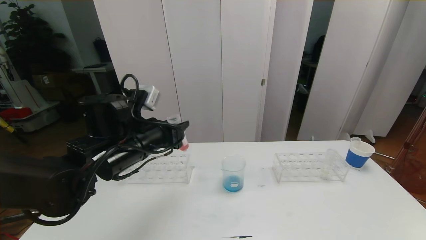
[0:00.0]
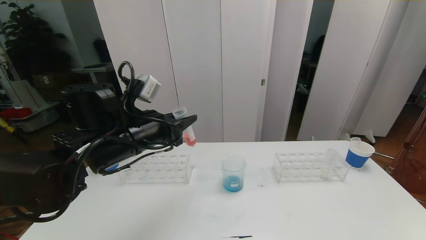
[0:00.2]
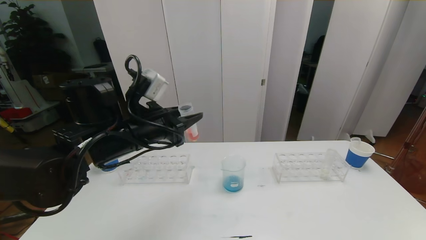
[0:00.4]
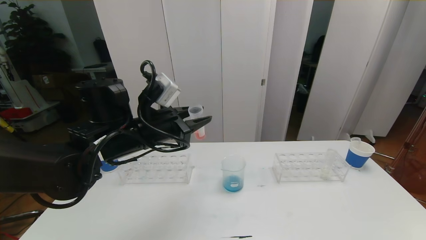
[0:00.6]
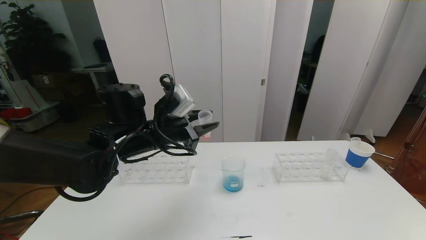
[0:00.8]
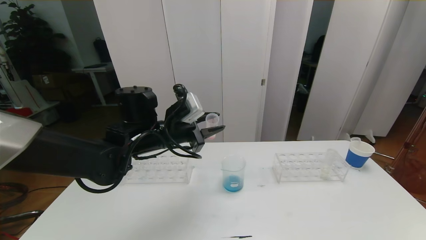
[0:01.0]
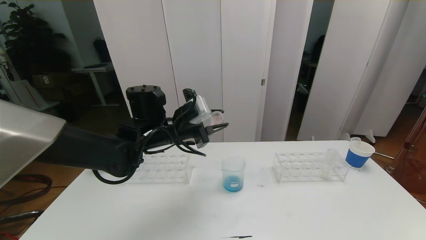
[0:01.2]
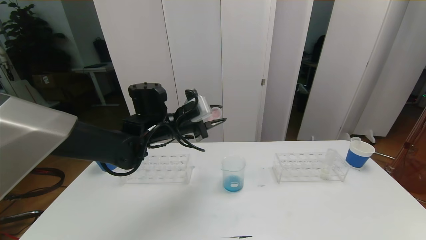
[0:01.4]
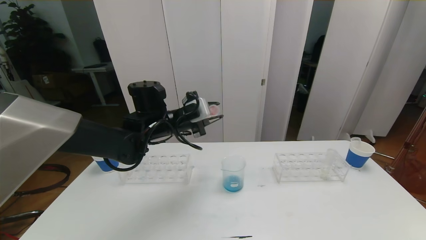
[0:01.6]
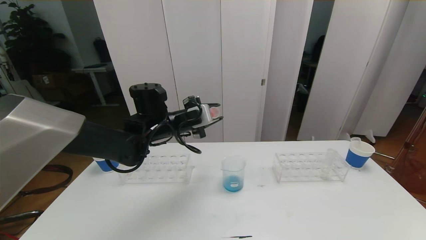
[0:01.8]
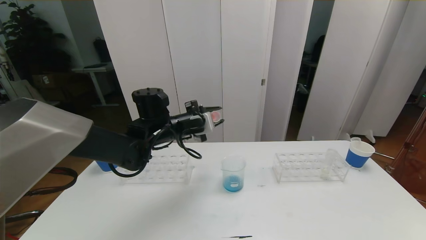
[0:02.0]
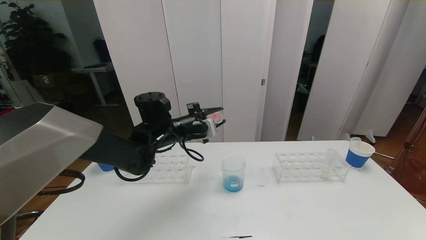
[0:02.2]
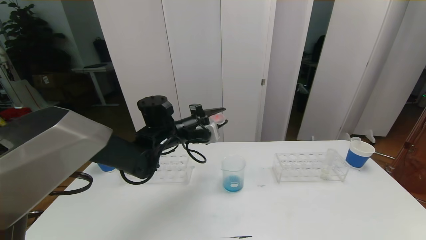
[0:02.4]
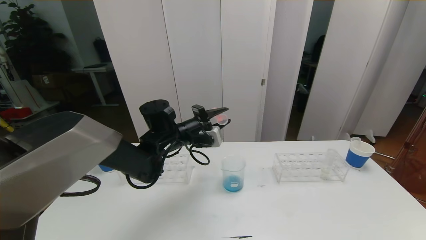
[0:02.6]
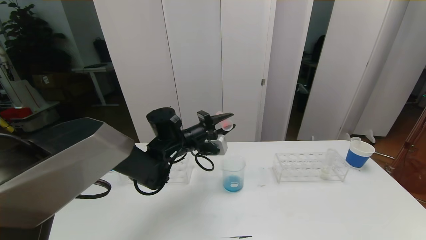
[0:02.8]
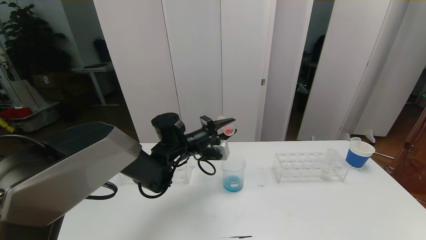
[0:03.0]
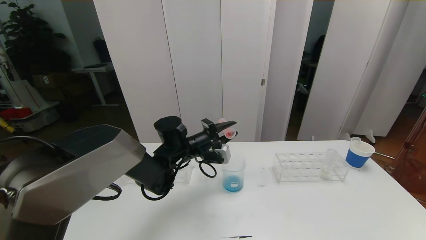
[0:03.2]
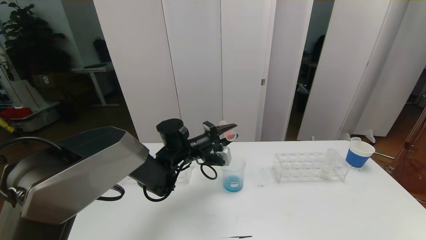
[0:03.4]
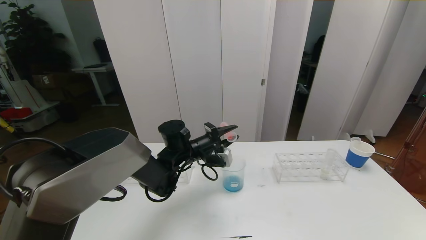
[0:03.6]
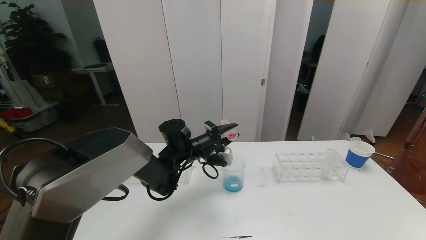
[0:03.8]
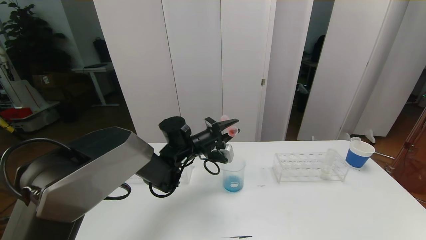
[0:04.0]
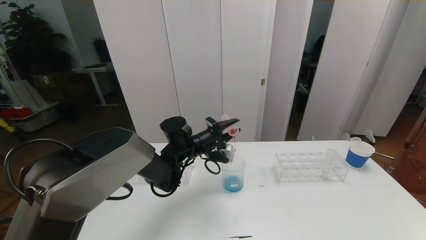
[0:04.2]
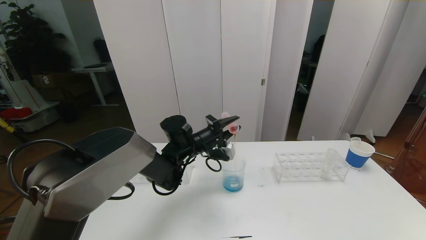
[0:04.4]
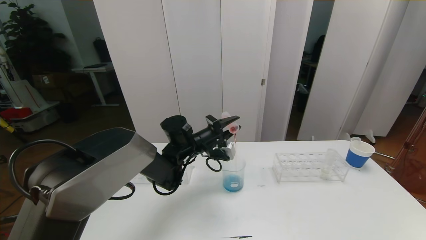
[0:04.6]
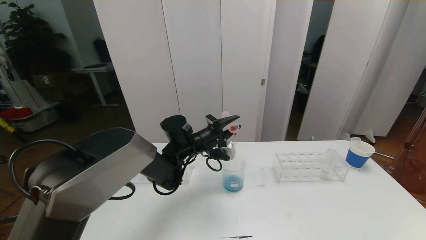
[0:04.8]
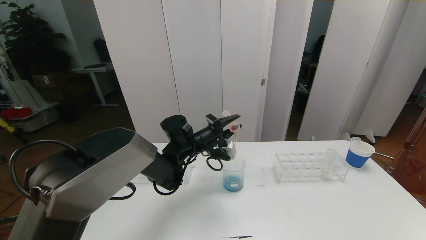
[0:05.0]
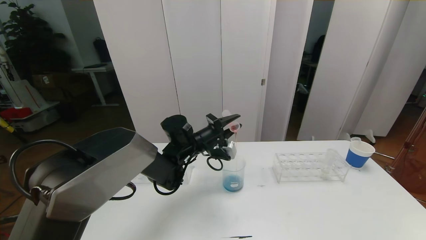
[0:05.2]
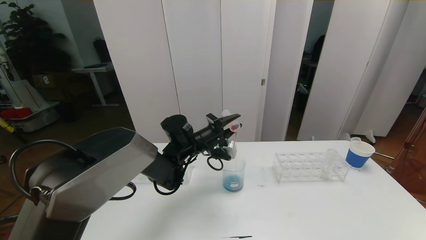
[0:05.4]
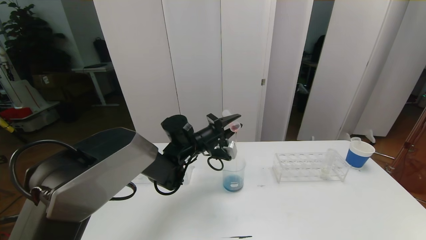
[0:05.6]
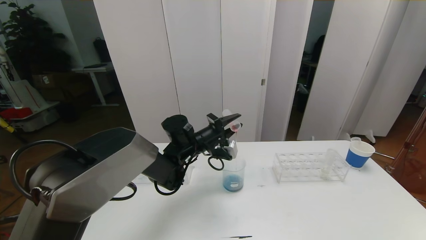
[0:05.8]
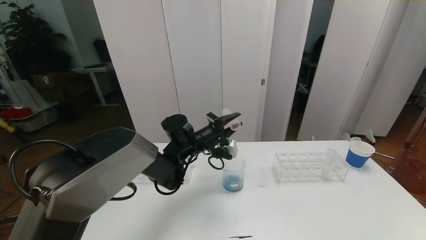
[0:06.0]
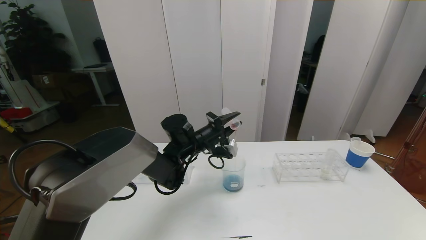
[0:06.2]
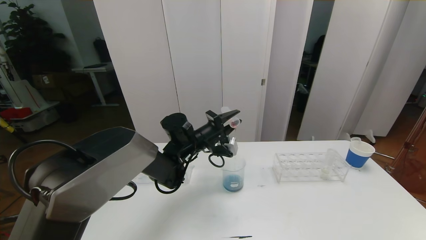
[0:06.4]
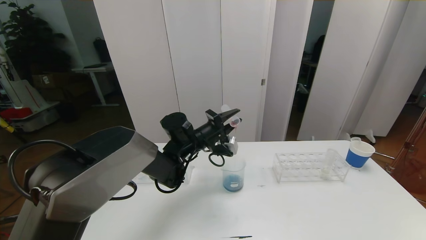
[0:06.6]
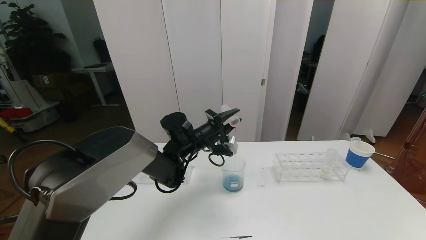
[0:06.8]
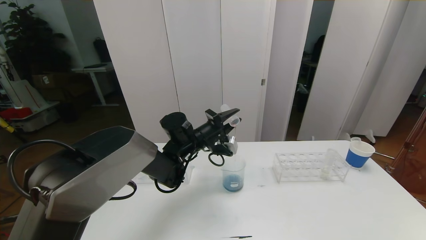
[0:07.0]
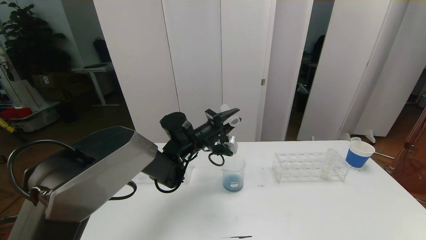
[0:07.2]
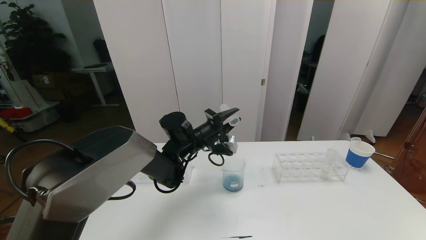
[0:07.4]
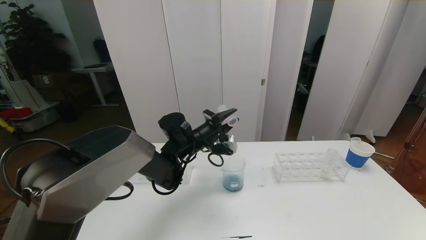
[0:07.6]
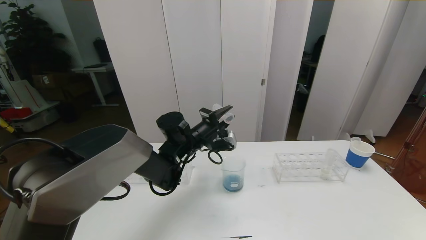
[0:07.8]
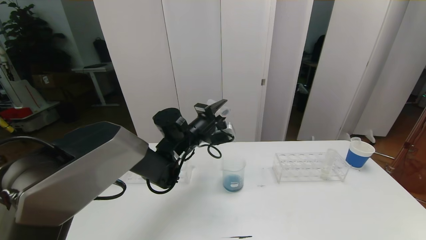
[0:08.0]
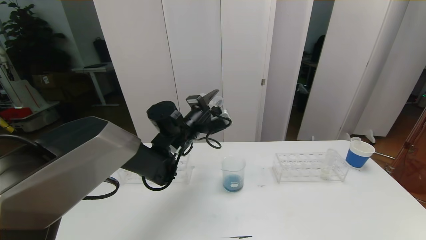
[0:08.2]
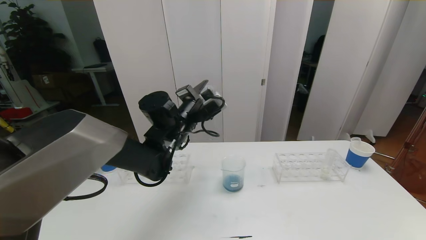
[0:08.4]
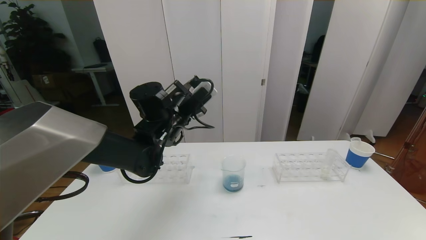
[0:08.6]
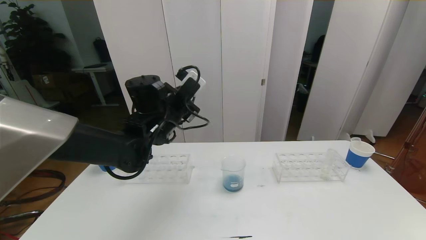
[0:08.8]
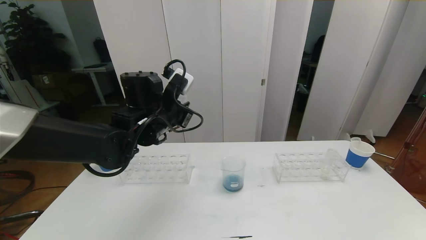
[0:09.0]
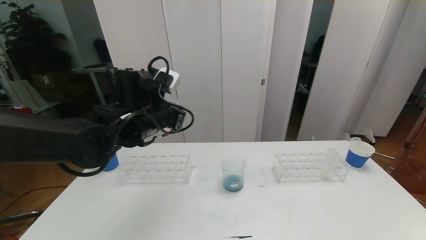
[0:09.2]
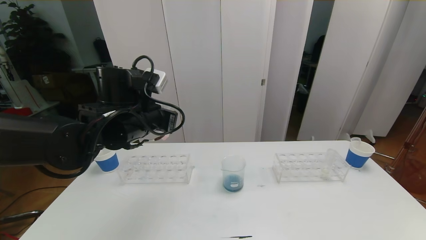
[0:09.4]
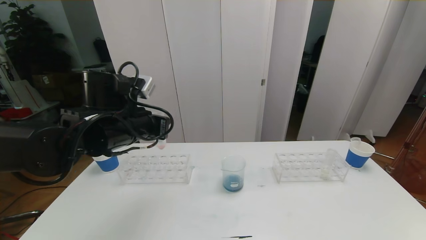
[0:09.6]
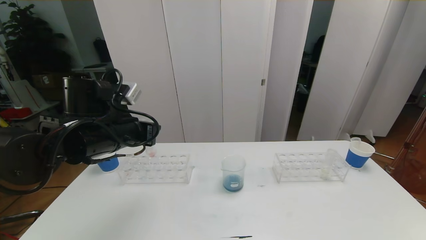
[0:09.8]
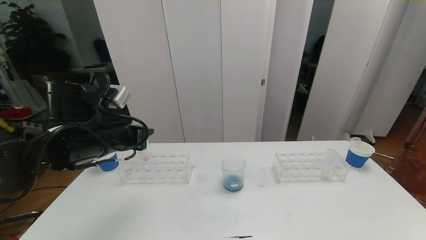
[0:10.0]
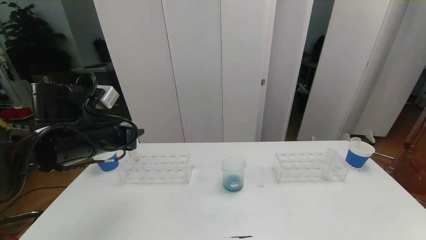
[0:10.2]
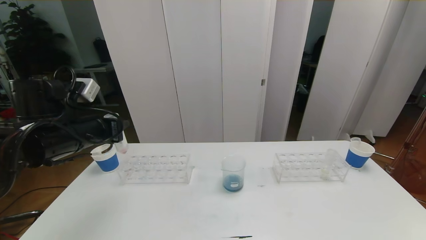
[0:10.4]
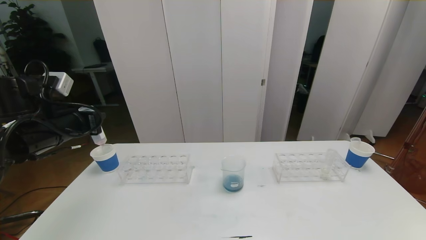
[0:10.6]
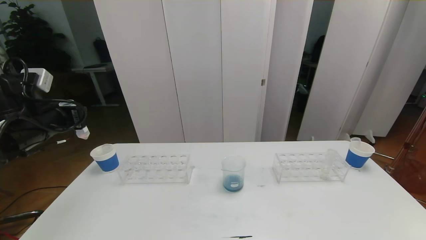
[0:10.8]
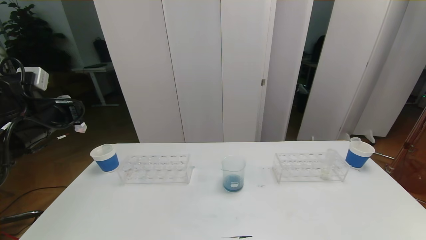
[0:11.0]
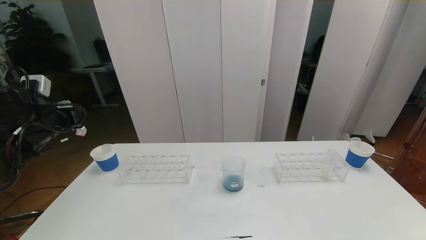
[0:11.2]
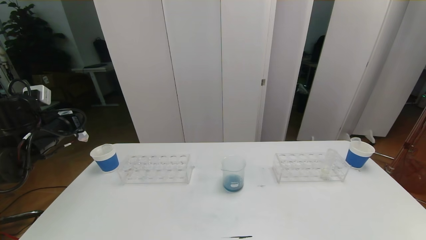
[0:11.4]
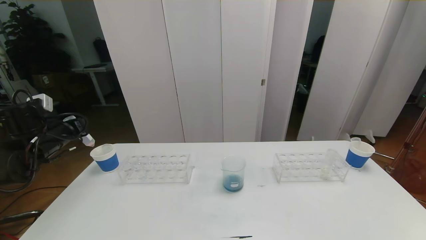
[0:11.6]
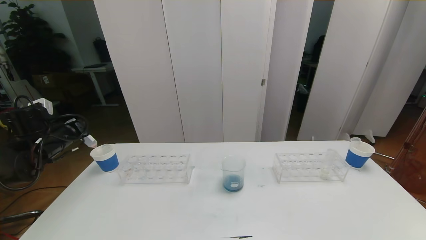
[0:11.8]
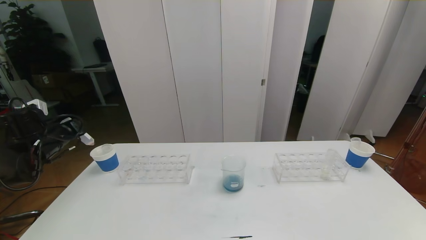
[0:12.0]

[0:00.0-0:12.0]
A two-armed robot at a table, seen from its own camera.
Task of the whole recording: pick up the test tube with red pigment the test tube with blue pigment and the test tube with white pigment by grippers and pour them into the beaker.
0:00.0 to 0:01.6: The left gripper goes some 10 cm forward.
0:01.6 to 0:03.0: The left gripper heads downward, covering some 5 cm.
0:03.0 to 0:04.4: There are only small adjustments of the grippers.
0:04.4 to 0:06.0: Both grippers stay put.
0:06.0 to 0:07.6: Both grippers stay about where they are.
0:07.6 to 0:09.0: The left gripper heads upward, to the left and backward, covering about 10 cm.
0:09.0 to 0:10.4: The left gripper heads to the left and backward, covering approximately 15 cm.
0:10.4 to 0:12.0: The left gripper shifts about 20 cm to the left, forward and downward.

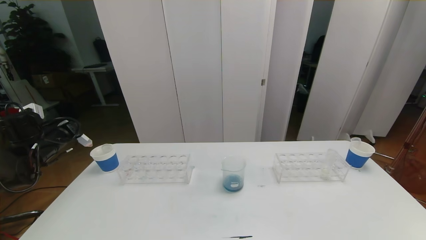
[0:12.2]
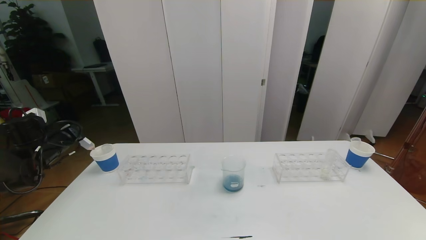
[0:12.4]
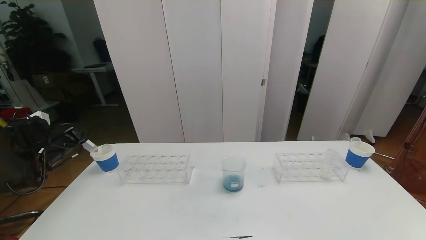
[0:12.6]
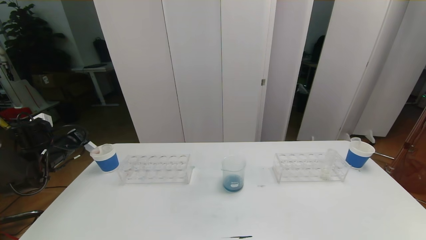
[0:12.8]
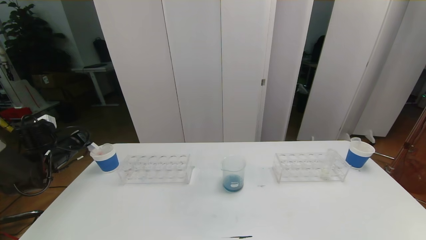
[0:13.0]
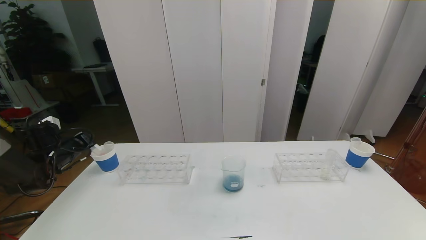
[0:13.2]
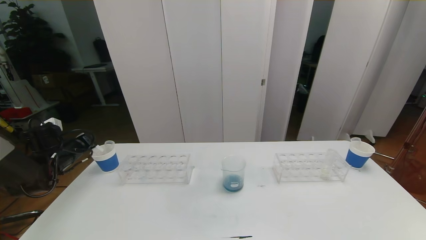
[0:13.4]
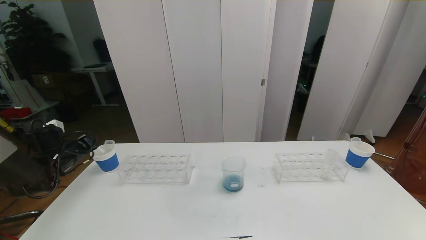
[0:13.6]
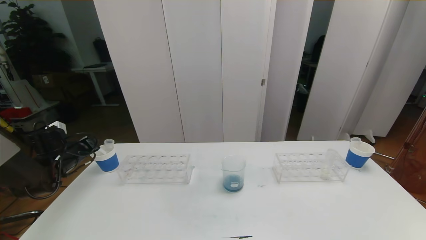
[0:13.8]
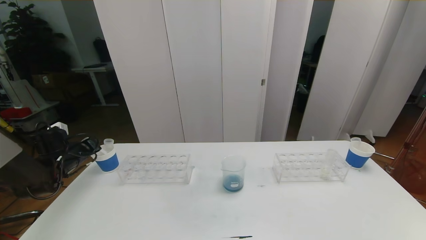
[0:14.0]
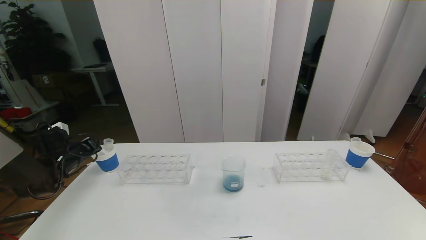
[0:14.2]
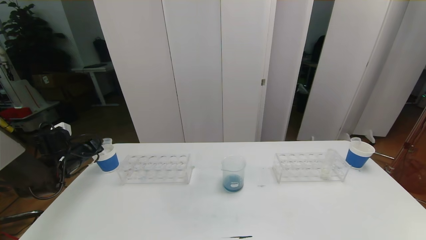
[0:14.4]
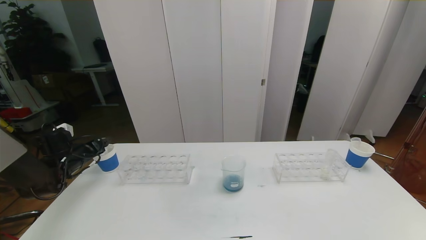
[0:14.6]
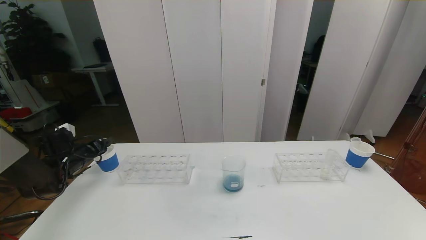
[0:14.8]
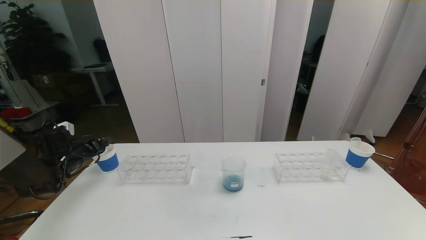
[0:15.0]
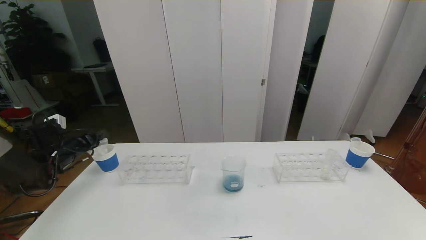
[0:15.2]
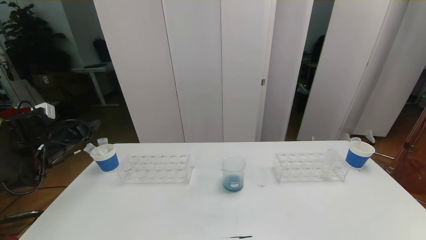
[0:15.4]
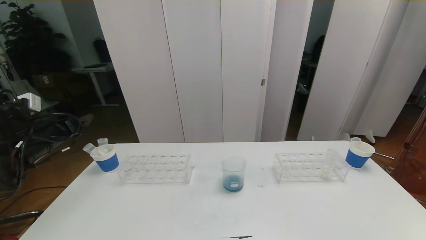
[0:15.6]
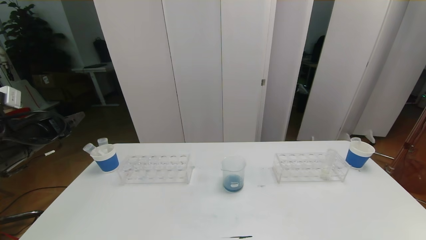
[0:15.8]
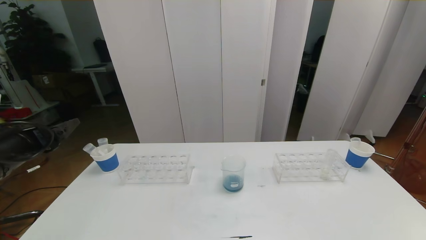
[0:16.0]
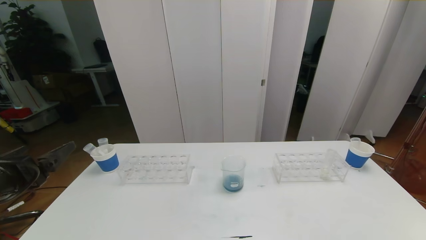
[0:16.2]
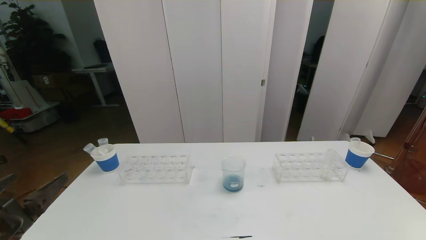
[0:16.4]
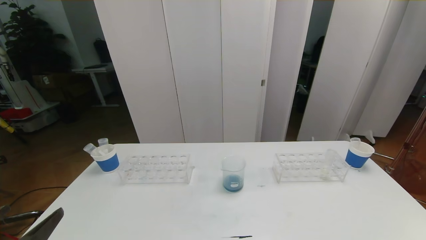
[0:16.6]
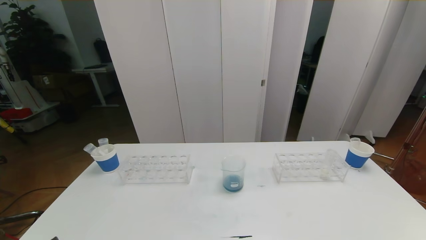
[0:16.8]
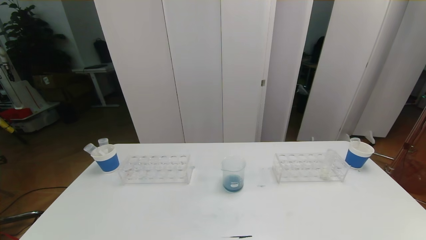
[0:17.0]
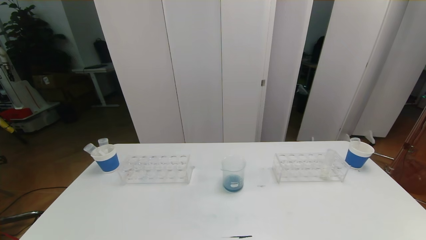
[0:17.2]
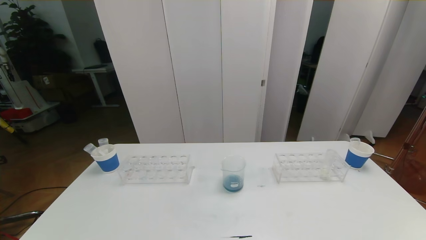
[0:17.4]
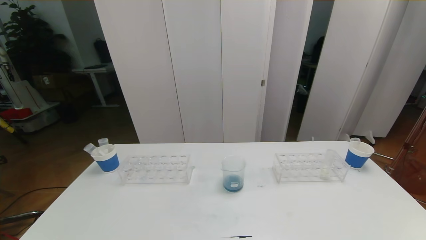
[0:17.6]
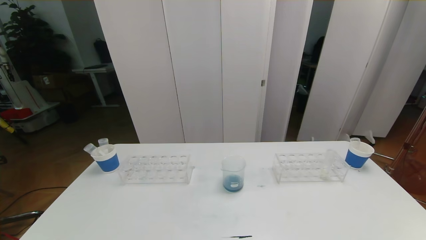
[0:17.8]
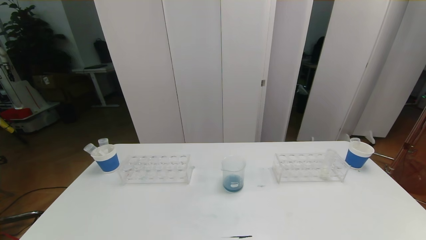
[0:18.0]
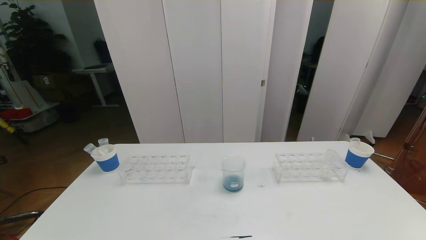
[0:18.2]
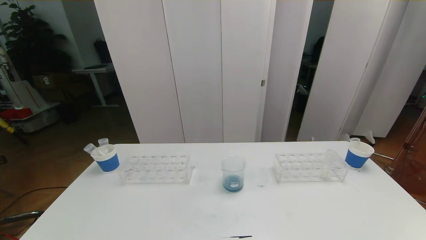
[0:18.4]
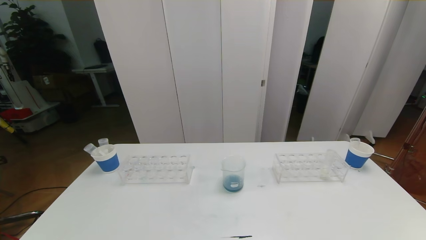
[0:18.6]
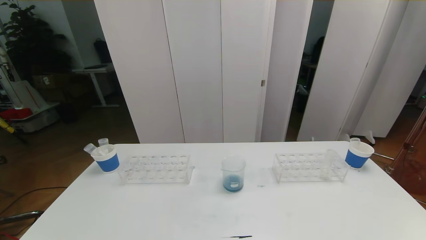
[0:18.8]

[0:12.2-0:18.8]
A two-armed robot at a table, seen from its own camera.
Task of the whole recording: pick up the test tube with red pigment the test tube with blue pigment and the test tube with white pigment by grippers and pour them into the beaker.
Step, 0:12.2 to 0:17.6: Pour the orange reagent into the graduated cylinder and place the test tube into the paper cup.
0:12.2 to 0:13.8: The left gripper travels downward by some 5 cm.
0:13.8 to 0:15.4: The left gripper heads upward, covering approximately 5 cm, and opens its fingers.
0:15.4 to 0:17.2: The left gripper is displaced backward by about 35 cm.
